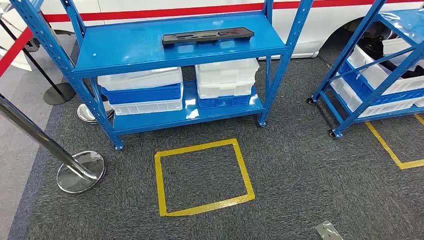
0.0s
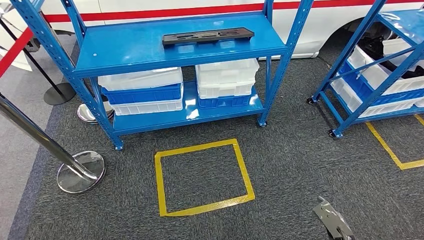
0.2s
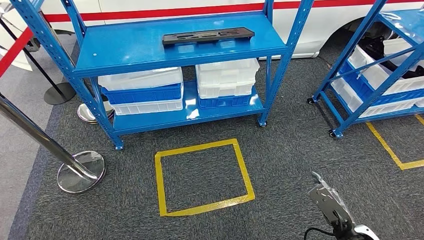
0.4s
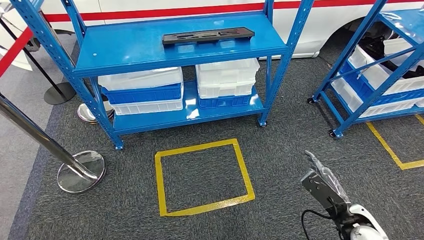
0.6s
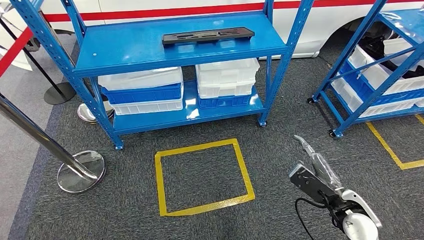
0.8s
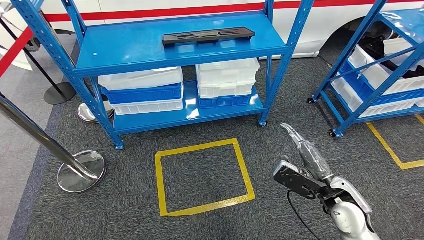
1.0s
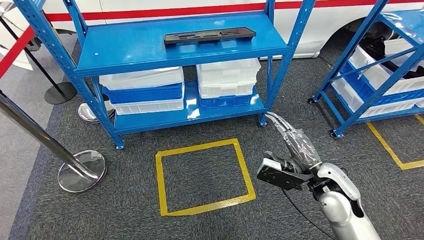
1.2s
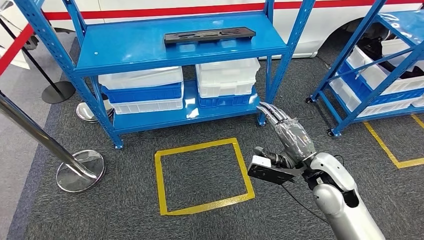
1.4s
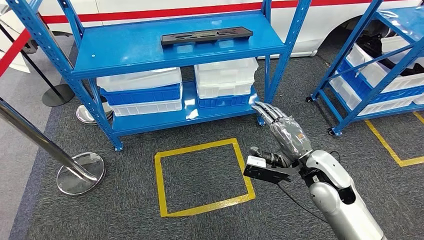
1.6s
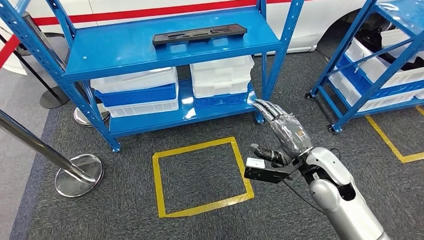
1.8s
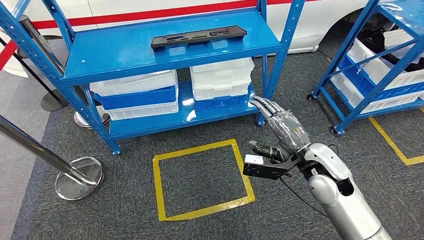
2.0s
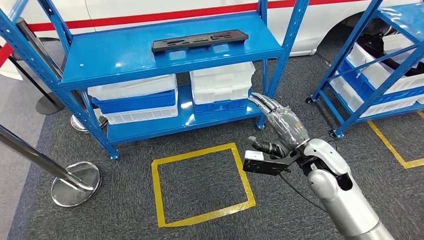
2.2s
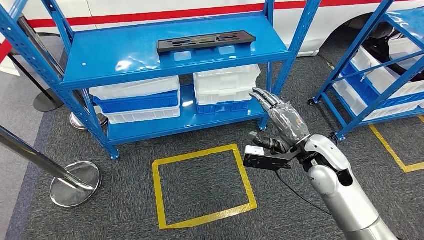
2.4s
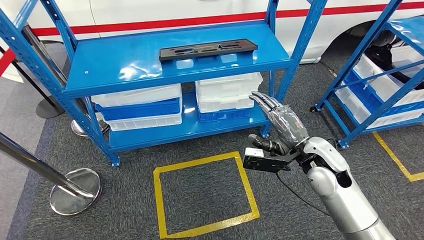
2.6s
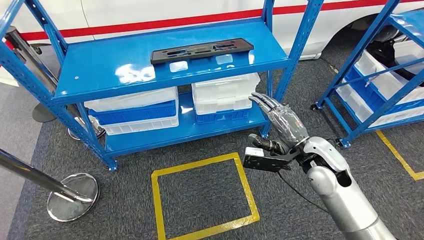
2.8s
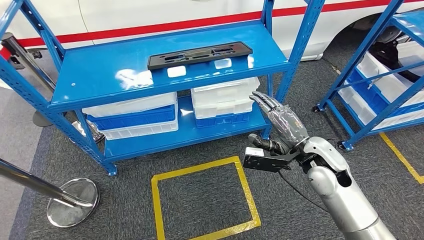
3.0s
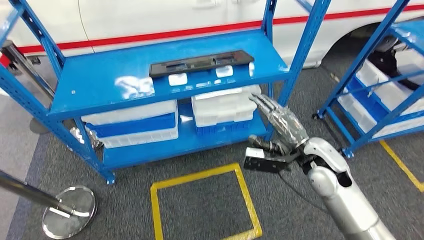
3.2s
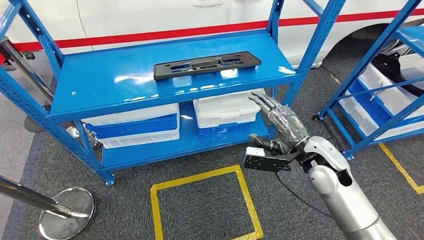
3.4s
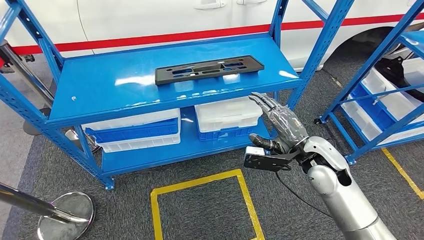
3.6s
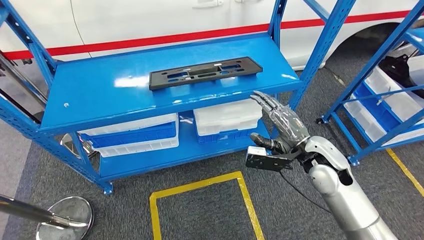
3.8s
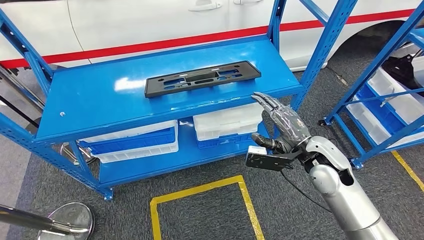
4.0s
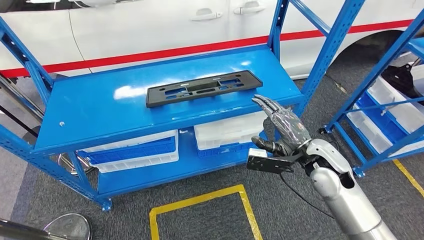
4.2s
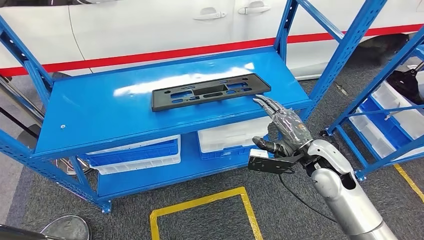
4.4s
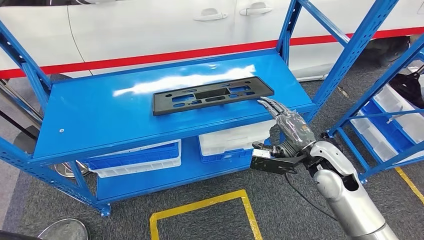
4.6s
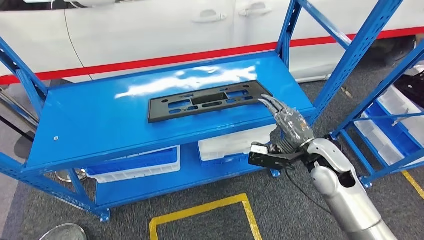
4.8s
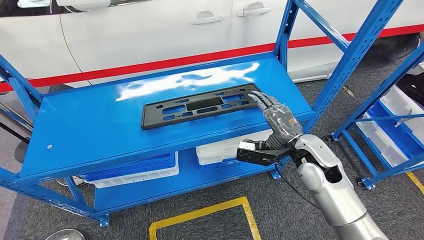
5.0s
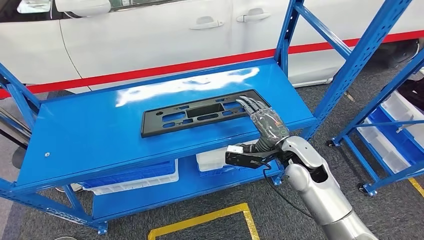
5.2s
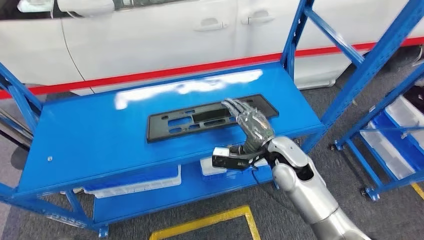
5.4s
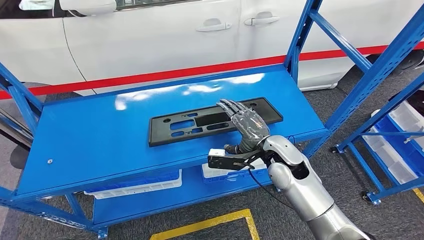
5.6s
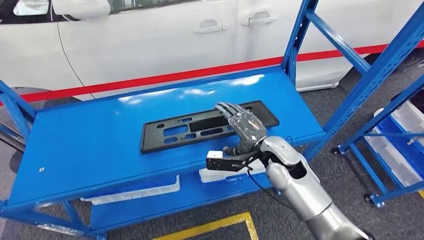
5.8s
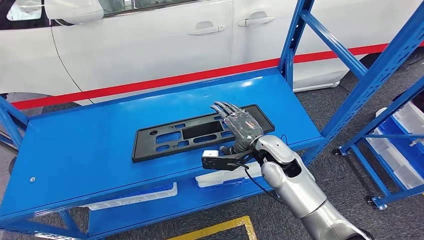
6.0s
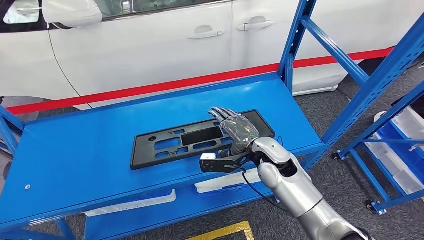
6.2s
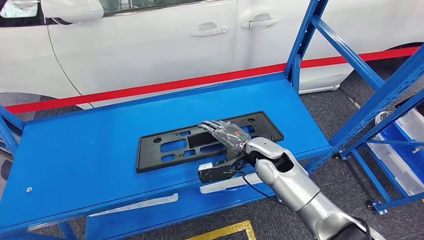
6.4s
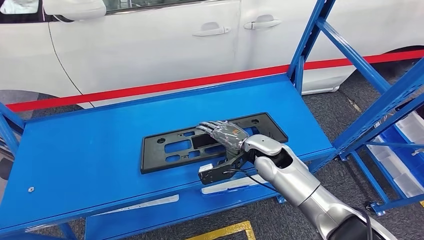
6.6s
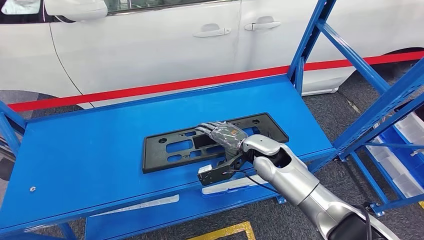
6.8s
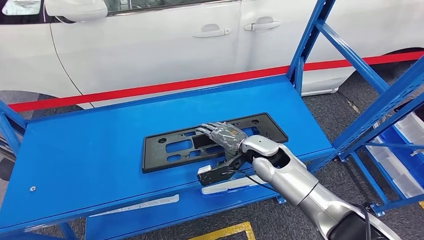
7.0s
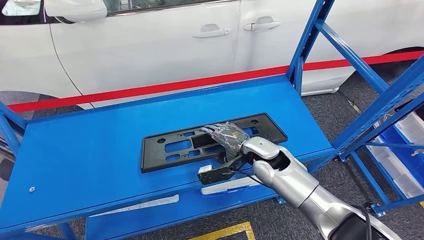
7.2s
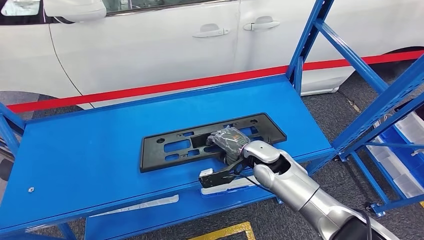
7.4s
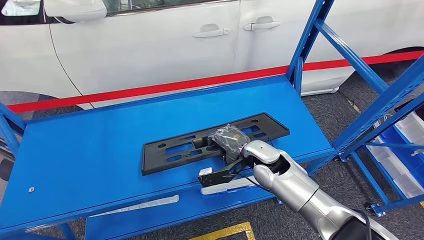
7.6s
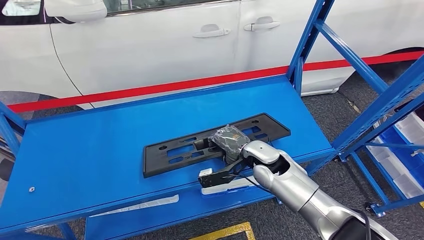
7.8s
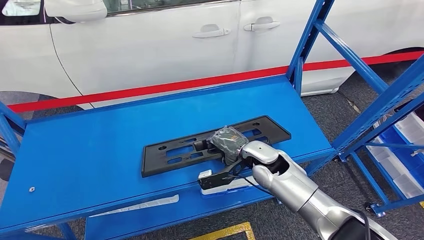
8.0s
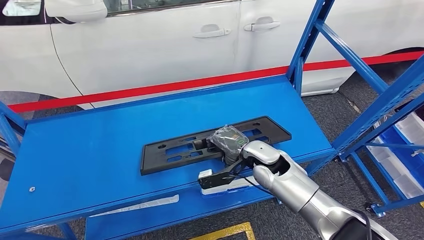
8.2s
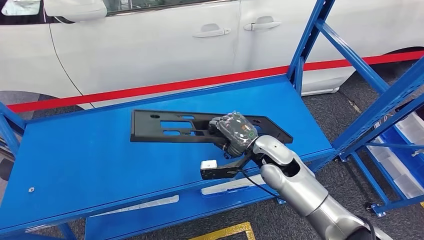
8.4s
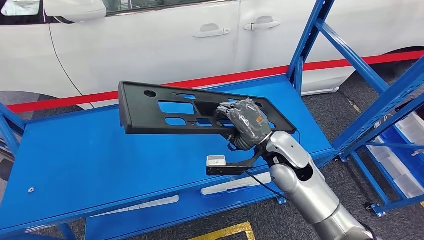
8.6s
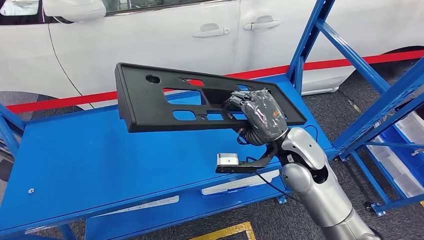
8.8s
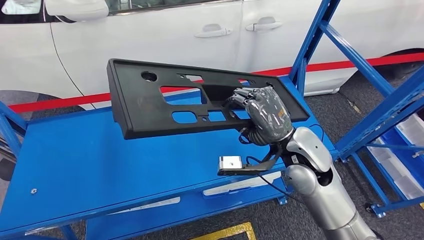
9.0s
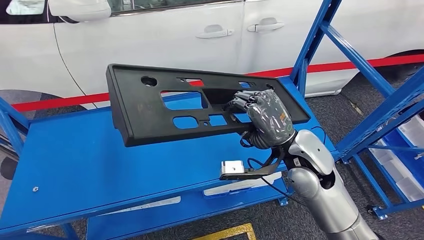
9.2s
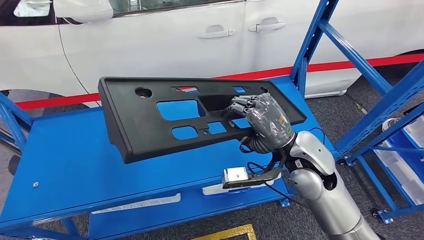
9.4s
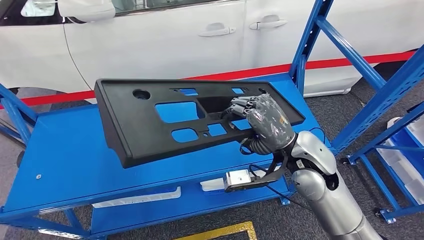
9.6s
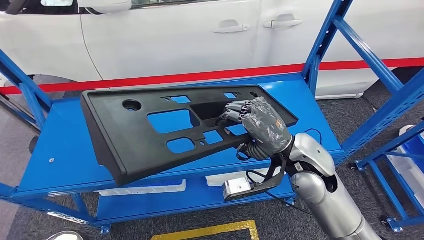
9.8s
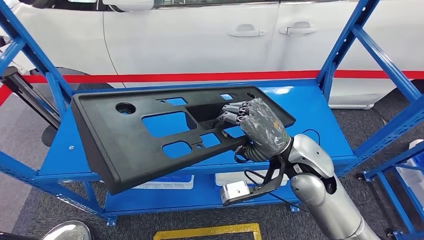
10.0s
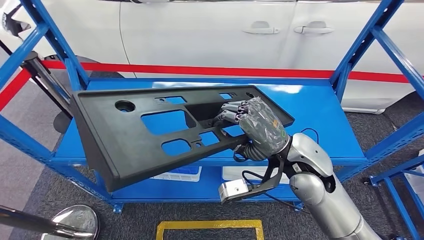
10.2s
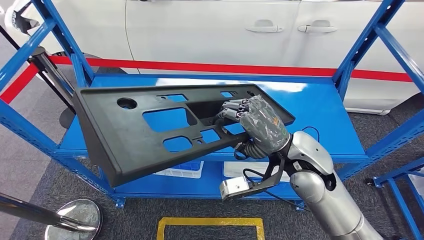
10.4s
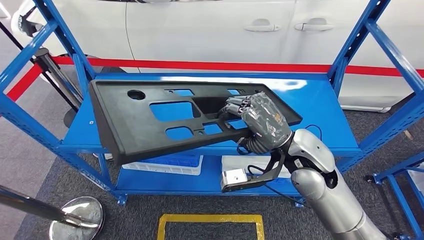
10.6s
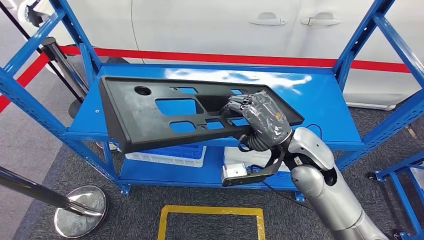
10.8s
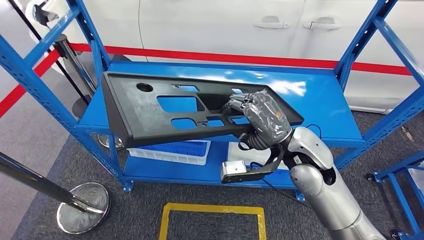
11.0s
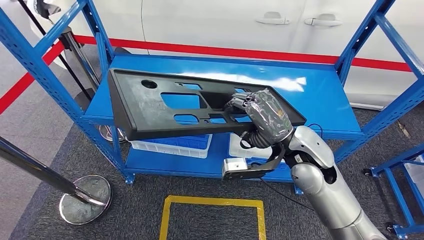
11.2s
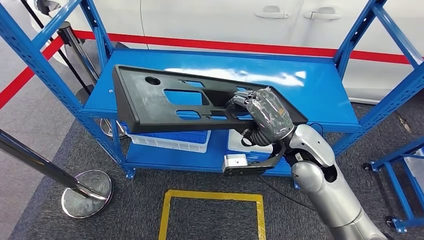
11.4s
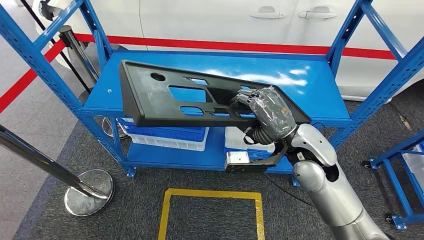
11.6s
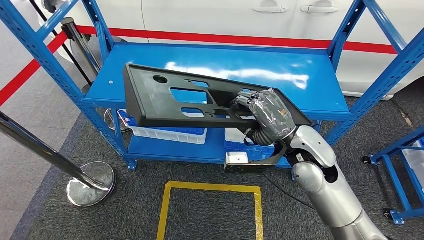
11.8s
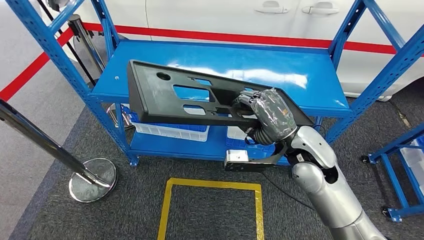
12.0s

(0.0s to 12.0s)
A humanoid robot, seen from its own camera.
Step, 0.0s - 10.8s: Pick up the large material from the shelf.

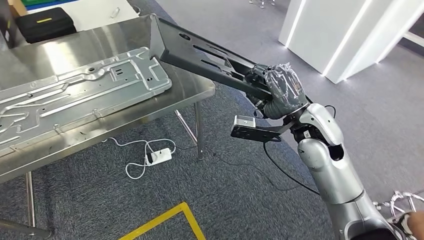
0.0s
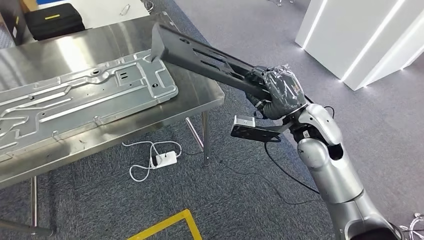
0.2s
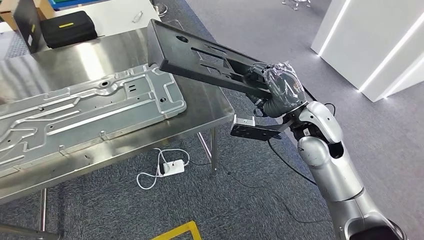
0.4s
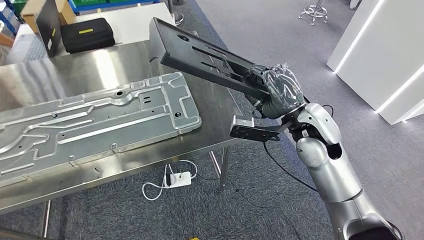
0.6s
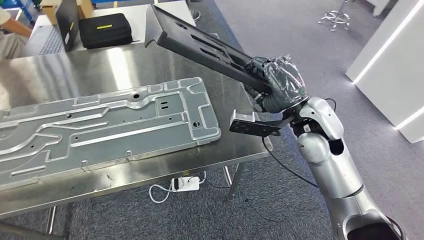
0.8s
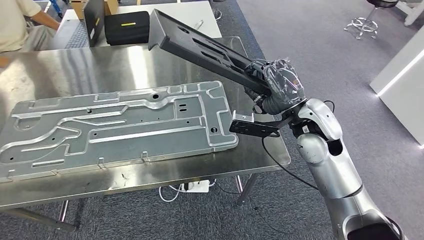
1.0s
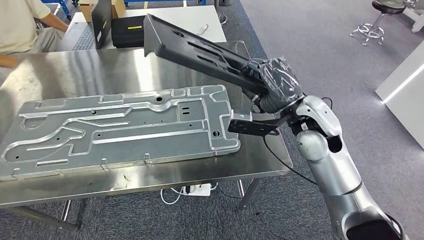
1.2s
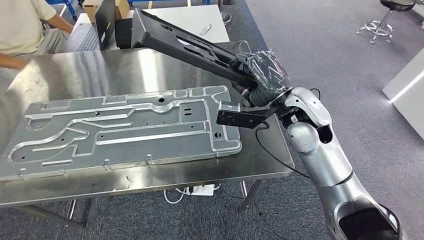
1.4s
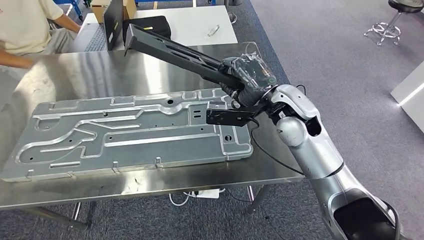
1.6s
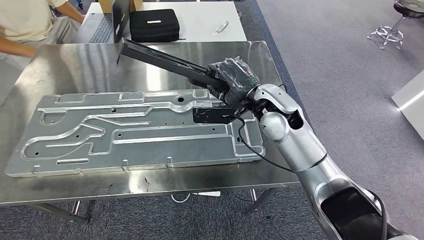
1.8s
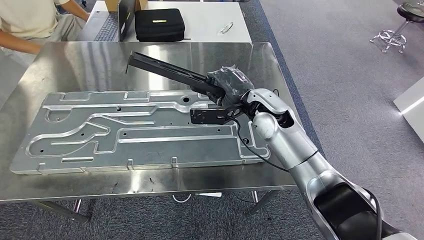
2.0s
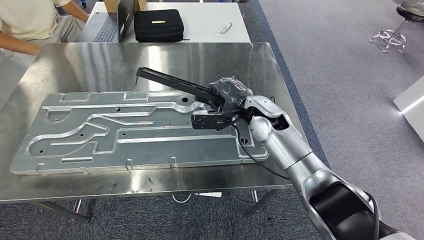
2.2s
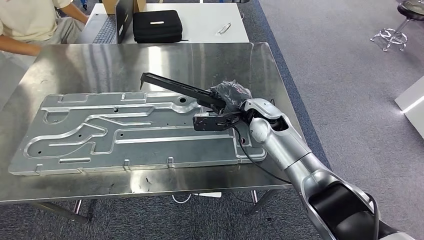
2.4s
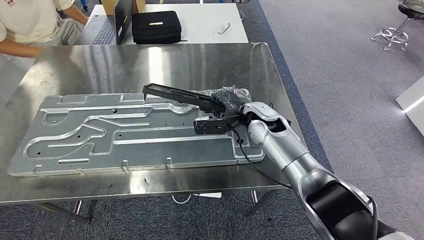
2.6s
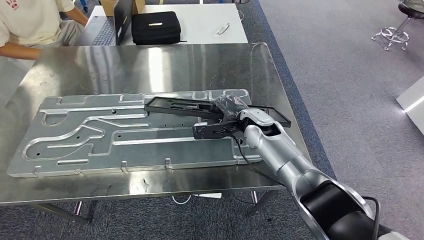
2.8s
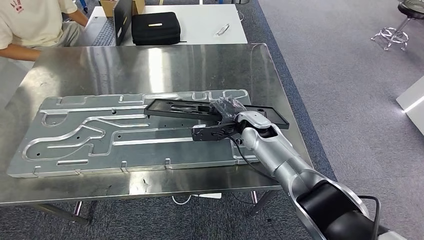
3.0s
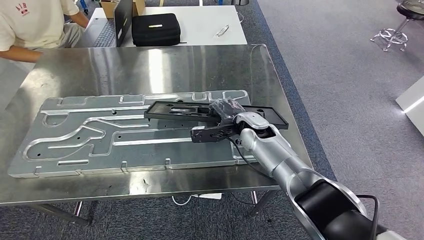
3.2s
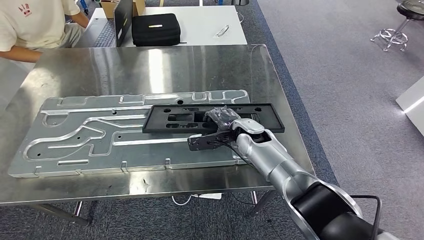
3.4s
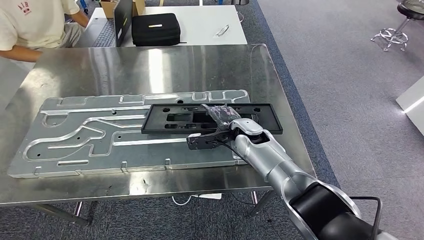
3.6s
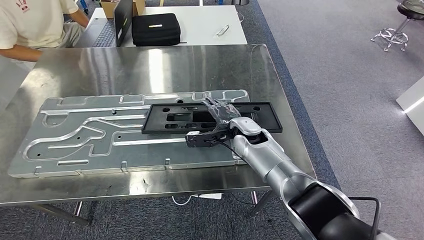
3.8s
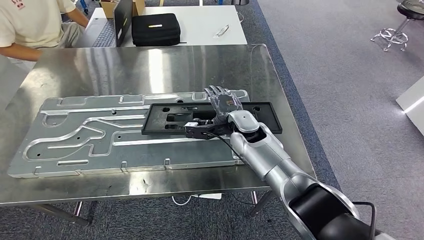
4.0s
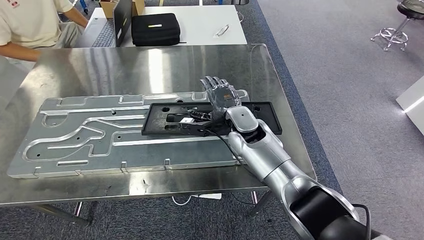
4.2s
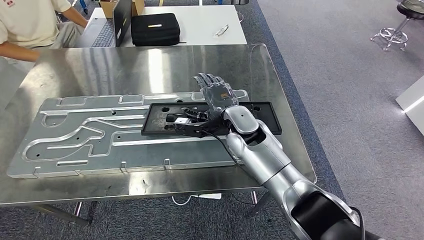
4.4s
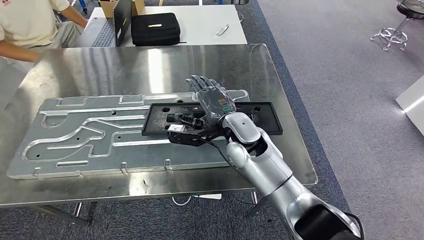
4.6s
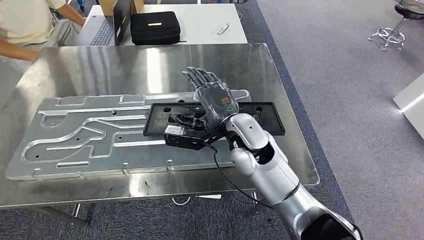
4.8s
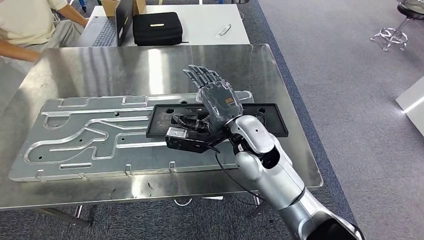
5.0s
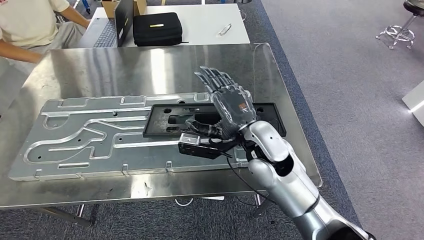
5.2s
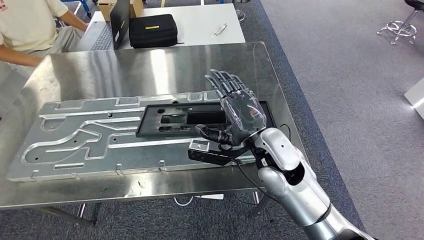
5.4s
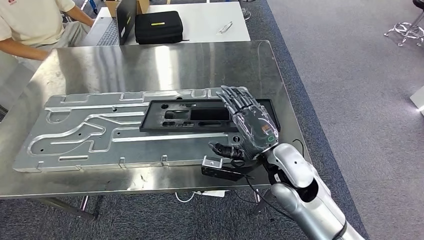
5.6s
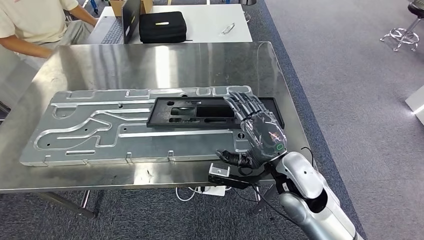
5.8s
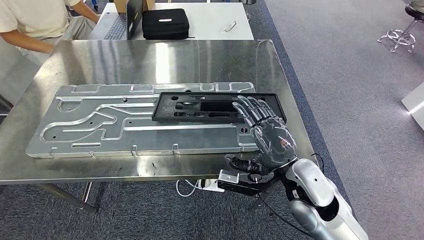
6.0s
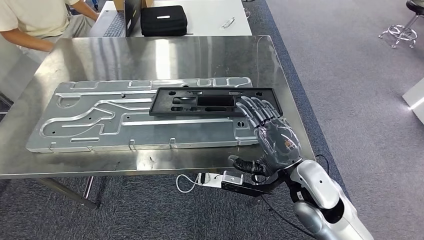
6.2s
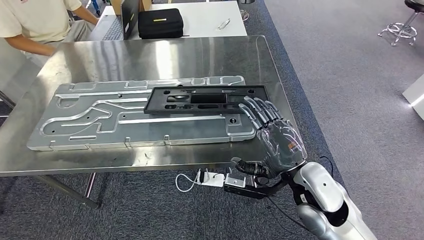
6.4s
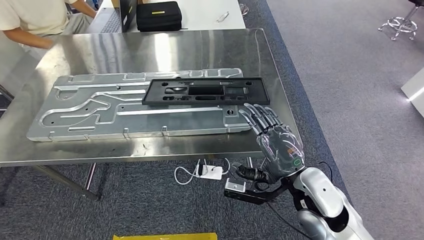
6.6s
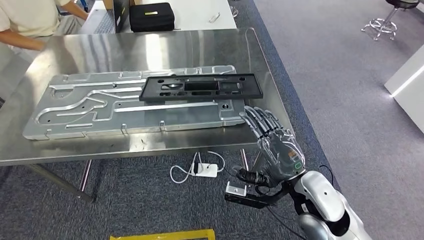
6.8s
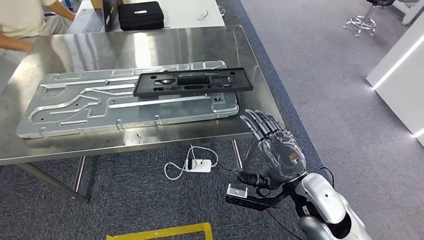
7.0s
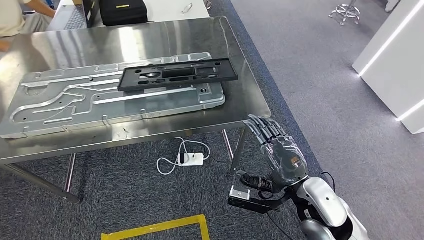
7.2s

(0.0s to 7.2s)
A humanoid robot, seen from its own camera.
2.8s - 4.4s: The right hand goes some 5 cm to the left.
